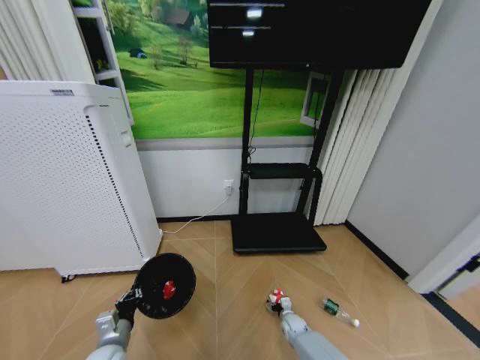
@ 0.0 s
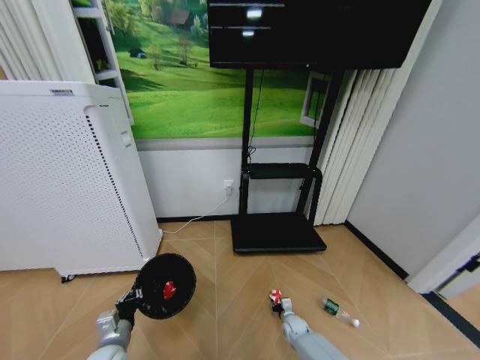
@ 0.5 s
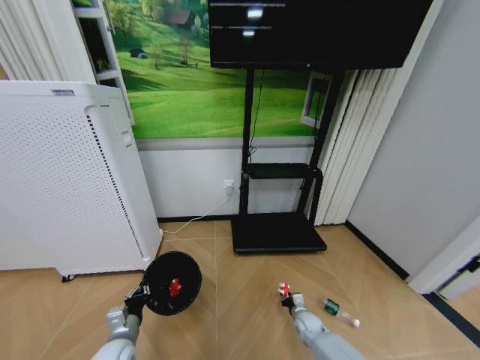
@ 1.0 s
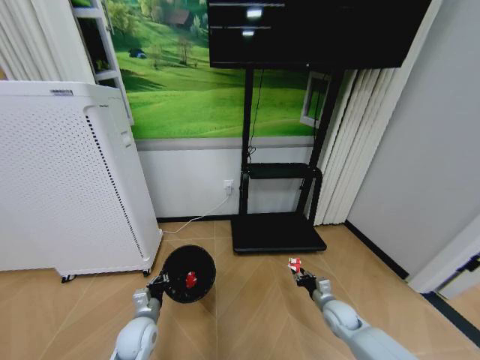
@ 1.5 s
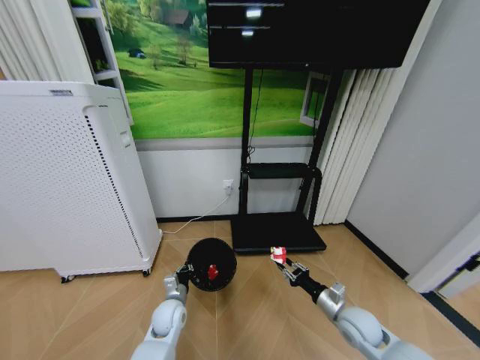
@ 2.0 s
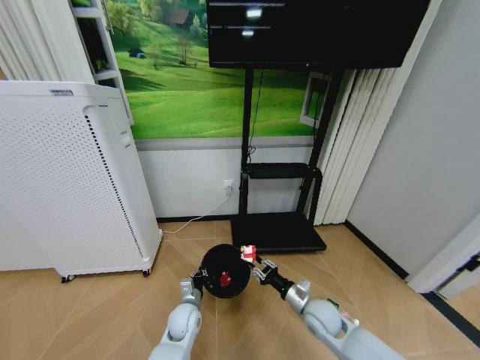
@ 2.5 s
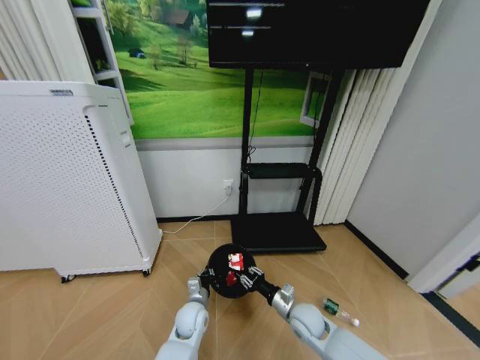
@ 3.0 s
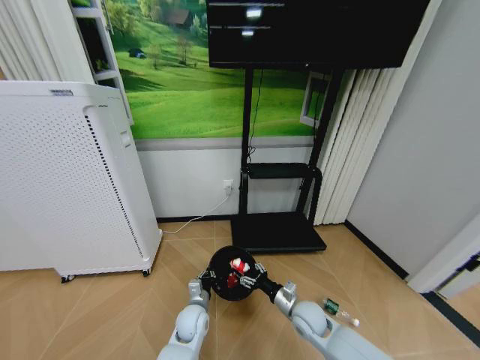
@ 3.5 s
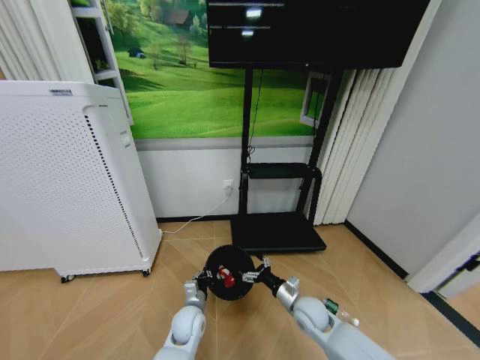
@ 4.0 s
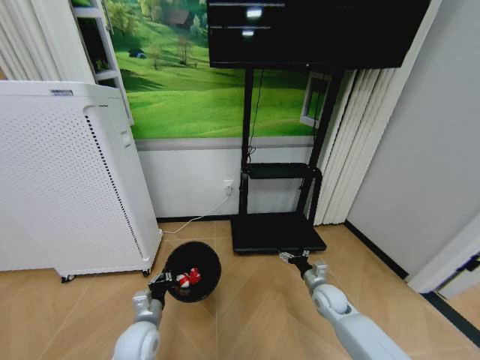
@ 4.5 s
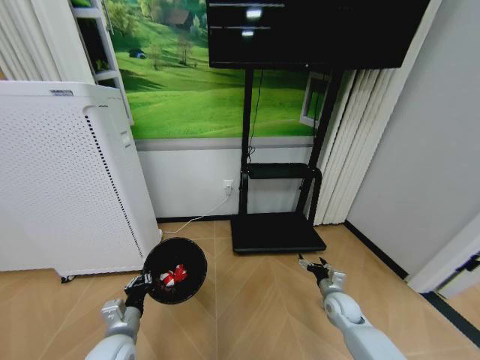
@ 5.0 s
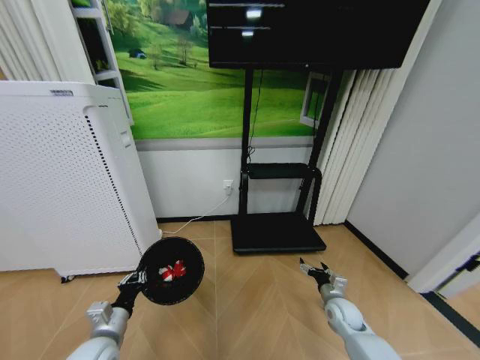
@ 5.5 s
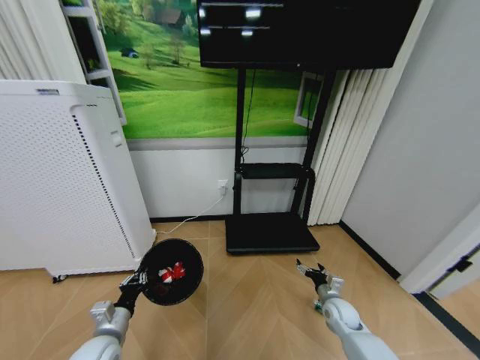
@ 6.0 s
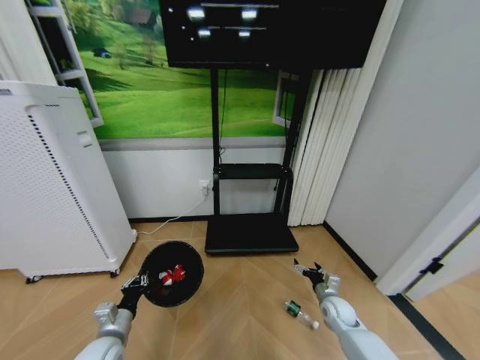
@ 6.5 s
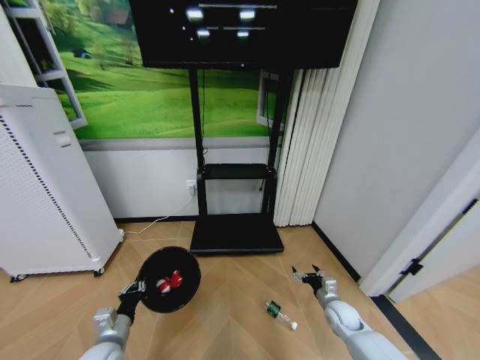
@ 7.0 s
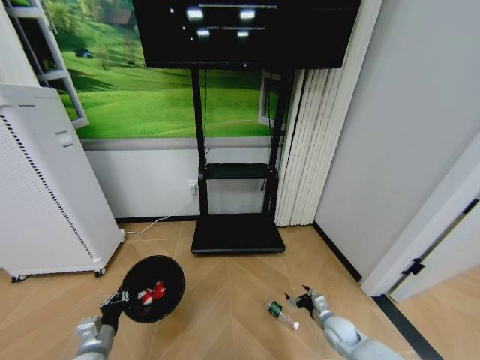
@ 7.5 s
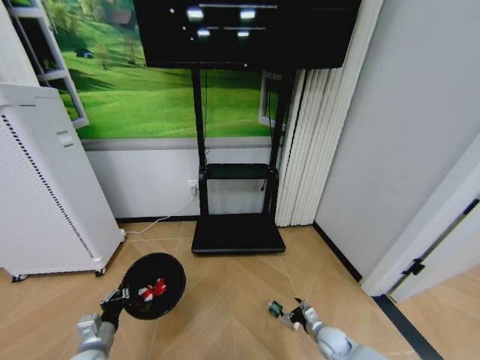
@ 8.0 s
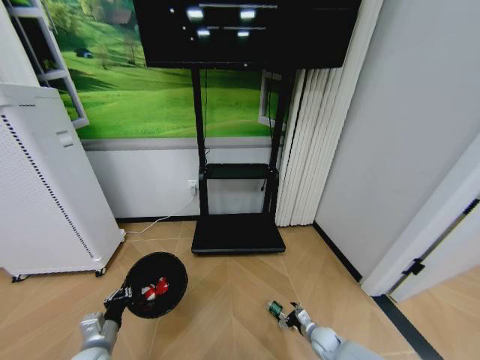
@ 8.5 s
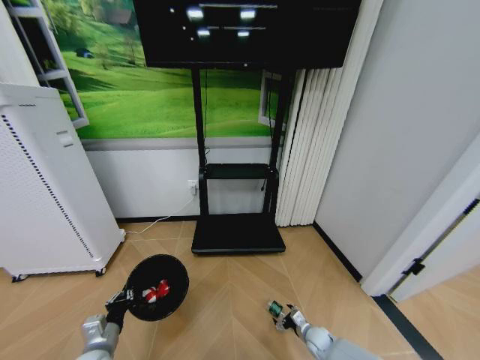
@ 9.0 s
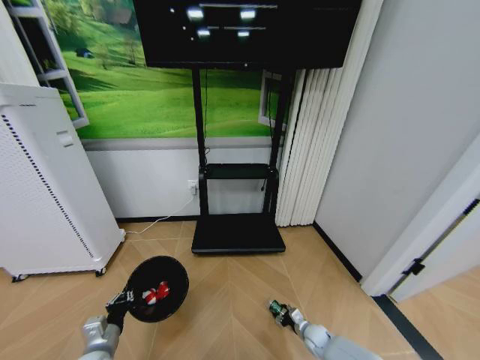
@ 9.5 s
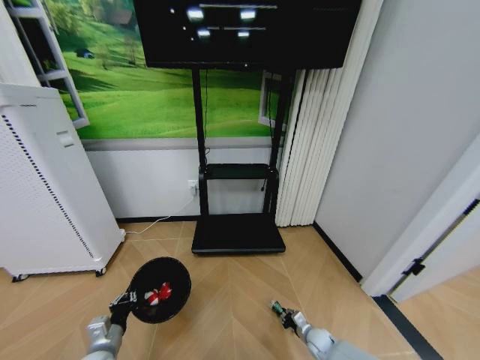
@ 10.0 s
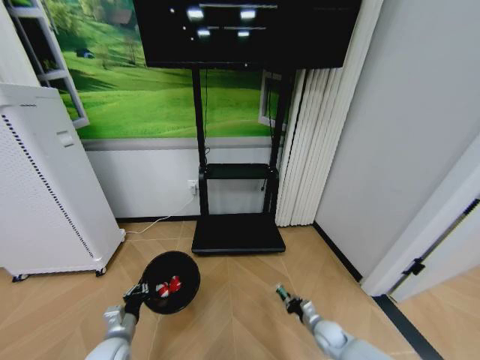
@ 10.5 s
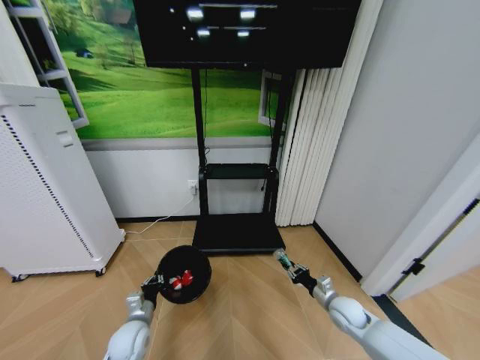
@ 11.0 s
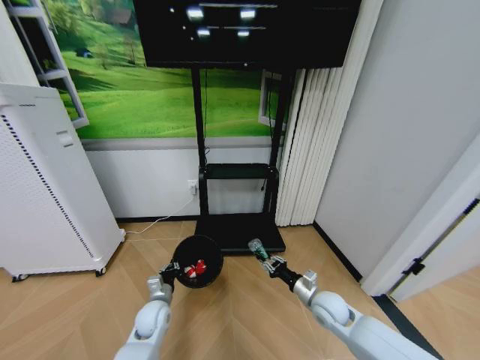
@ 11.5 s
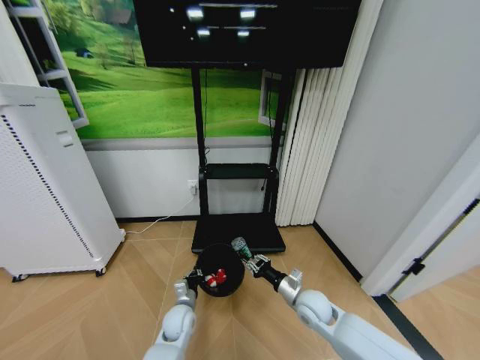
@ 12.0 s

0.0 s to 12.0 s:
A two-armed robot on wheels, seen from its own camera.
Task of the whole recording: Pick up the trash bin and place the garbage on the floor into it.
0.0 to 2.0 s: The left gripper heads forward and to the right, covering approximately 15 cm; the right gripper moves upward and to the right, some 25 cm, and closes its fingers.
2.0 to 4.0 s: The right gripper moves to the left, some 10 cm, and opens its fingers, while the left gripper travels to the right by about 10 cm.
4.0 to 6.0 s: The right gripper shifts approximately 15 cm to the right; the left gripper goes approximately 25 cm to the left, backward and upward.
6.0 to 8.0 s: The right gripper travels downward and backward by about 10 cm; the left gripper shifts by approximately 5 cm.
8.0 to 10.0 s: The right gripper moves downward, approximately 5 cm, and closes its fingers.
10.0 to 12.0 s: The left gripper moves to the right and forward, about 20 cm; the right gripper shifts about 25 cm upward.

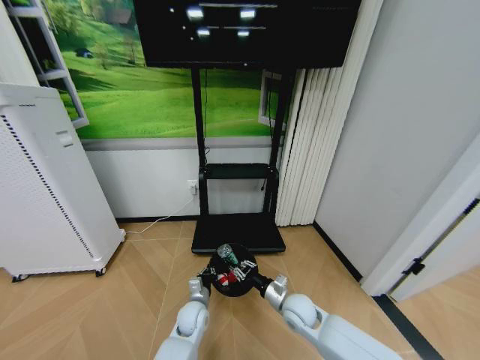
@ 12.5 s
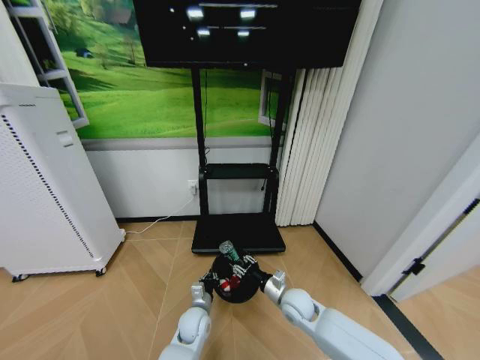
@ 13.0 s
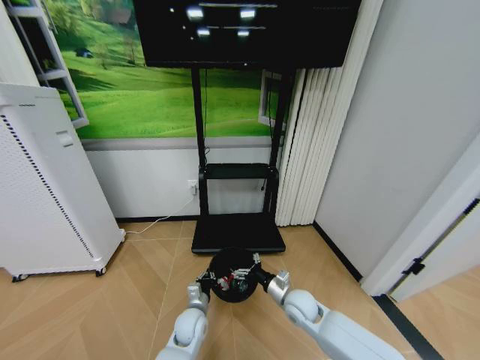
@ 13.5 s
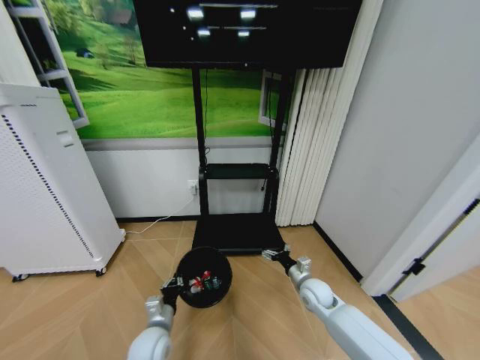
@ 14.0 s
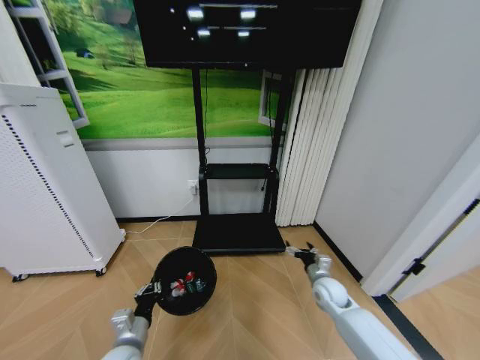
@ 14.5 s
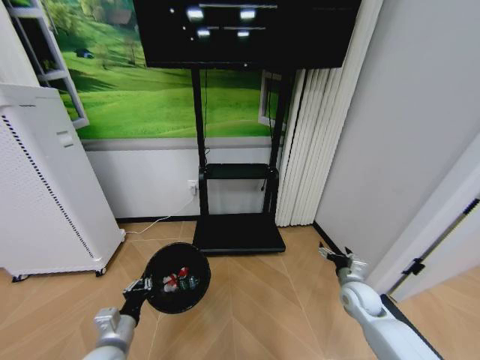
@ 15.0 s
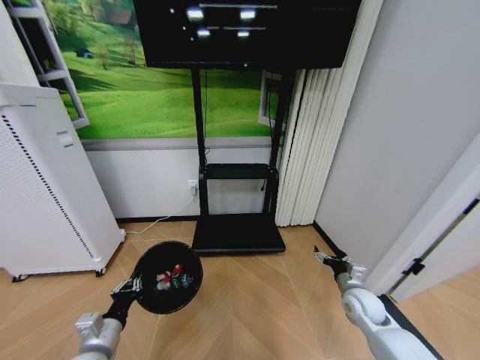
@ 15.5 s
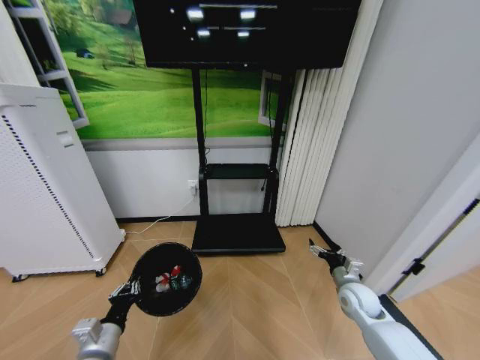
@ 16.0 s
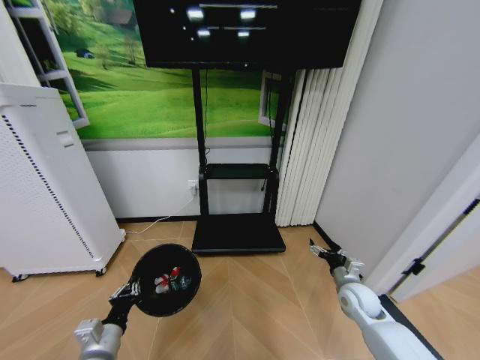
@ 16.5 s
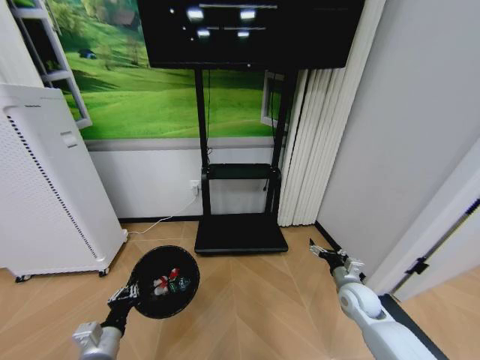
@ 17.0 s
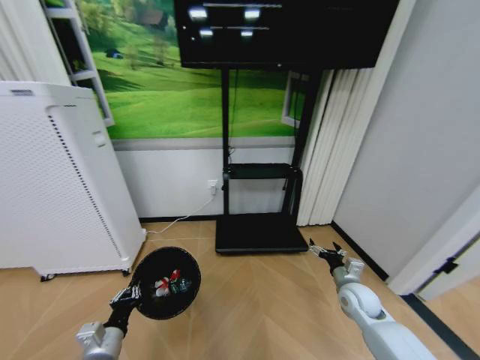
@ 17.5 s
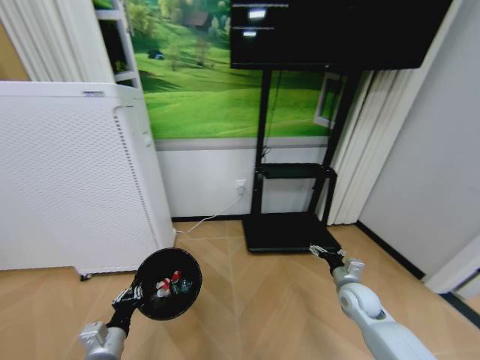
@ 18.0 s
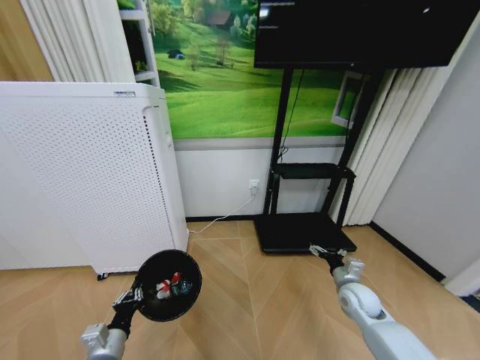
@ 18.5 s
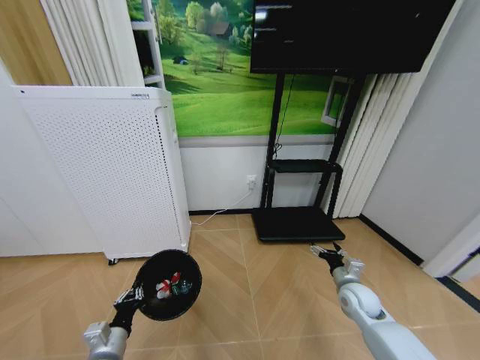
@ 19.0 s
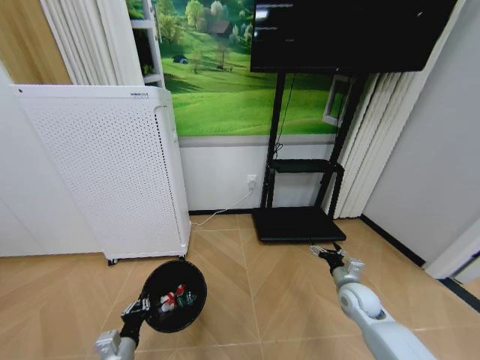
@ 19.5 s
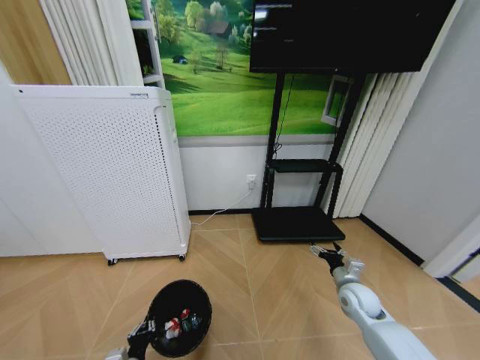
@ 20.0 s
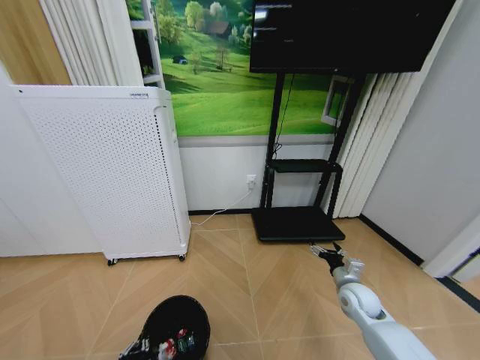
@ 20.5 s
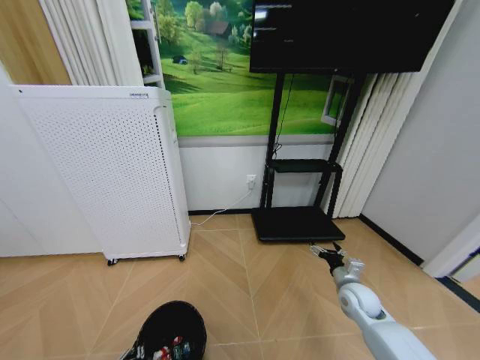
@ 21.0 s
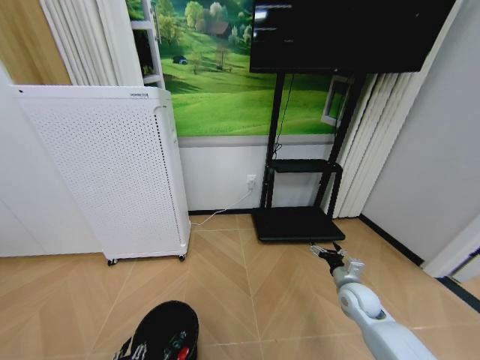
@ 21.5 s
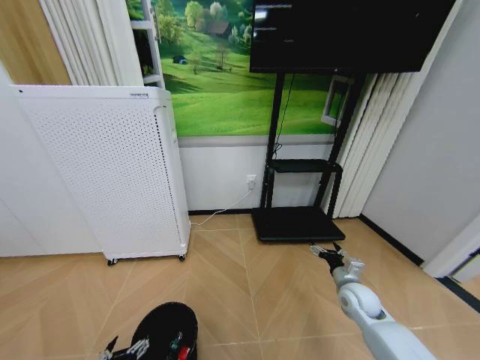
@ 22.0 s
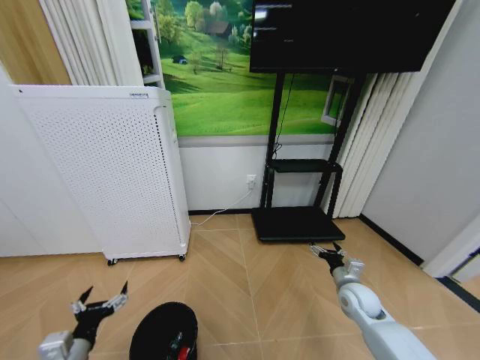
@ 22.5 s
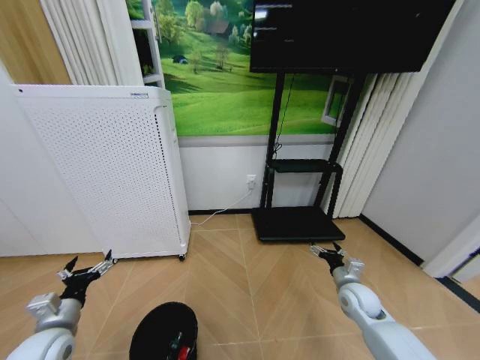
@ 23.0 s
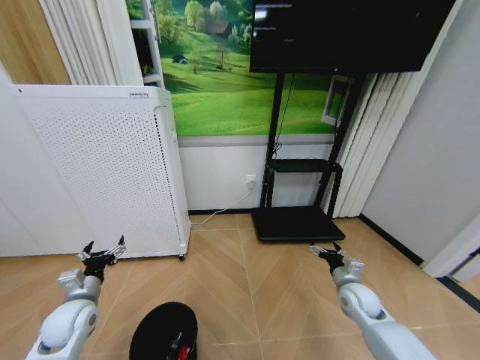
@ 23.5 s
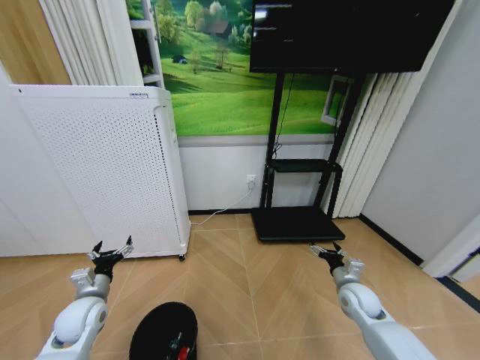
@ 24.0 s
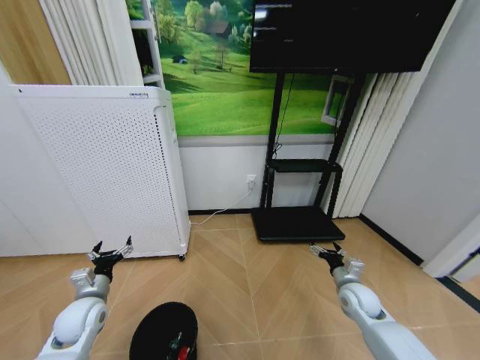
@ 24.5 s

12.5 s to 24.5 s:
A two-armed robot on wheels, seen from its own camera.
Task of the whole recording: Pick up the trash bin and place the garbage on the floor into it.
12.5 to 14.5 s: The right gripper moves to the right and forward, about 15 cm, and opens. The left gripper shifts some 20 cm to the left, backward and upward.
14.5 to 16.5 s: The left gripper changes place by approximately 5 cm. Meanwhile the right gripper moves to the right, approximately 5 cm.
18.5 to 20.5 s: The left gripper is displaced backward and downward by some 10 cm.
20.5 to 22.5 s: The left gripper heads upward and to the left, covering some 10 cm, and opens up.
22.5 to 24.5 s: The left gripper is displaced forward by about 15 cm.

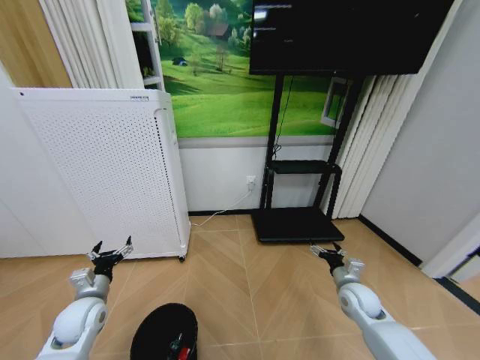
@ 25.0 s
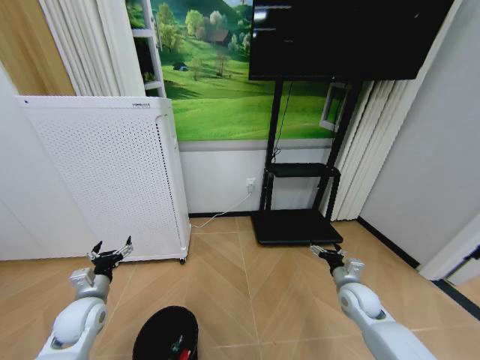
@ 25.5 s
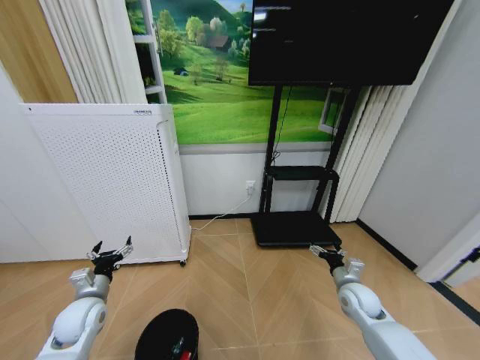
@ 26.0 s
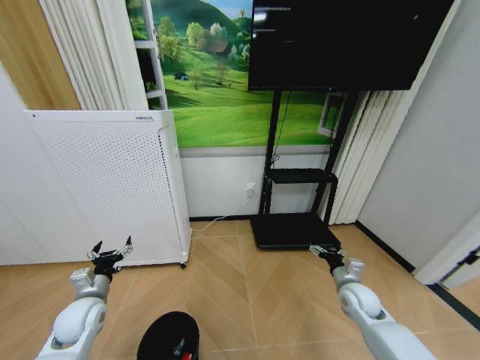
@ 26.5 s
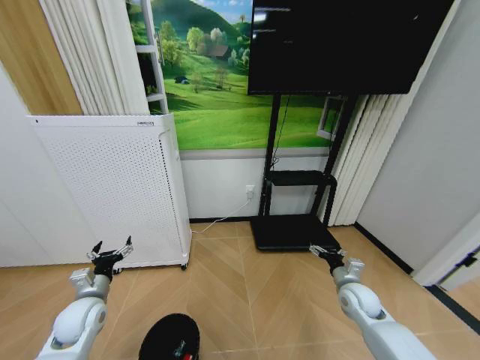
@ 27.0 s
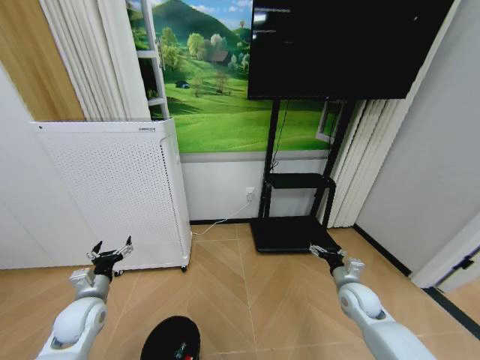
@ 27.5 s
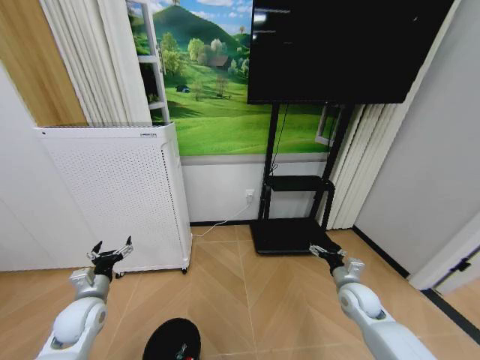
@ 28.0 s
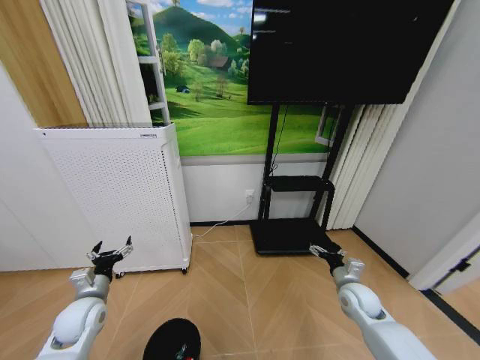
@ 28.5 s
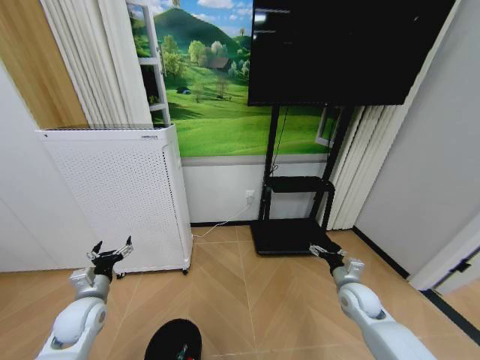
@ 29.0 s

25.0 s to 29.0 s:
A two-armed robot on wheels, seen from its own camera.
Task of the whole recording: Pick up the trash bin and place the garbage on the floor into it.
25.0 to 29.0 s: Both grippers stay put.
